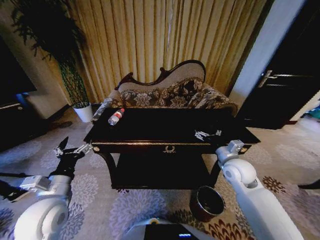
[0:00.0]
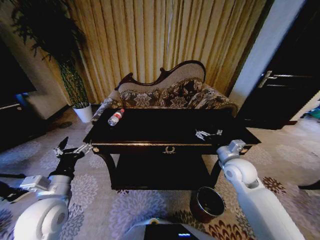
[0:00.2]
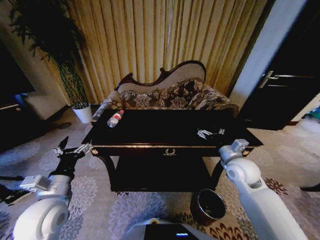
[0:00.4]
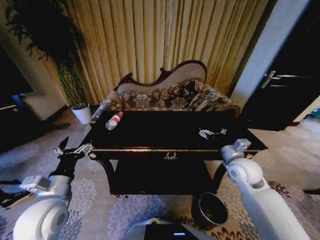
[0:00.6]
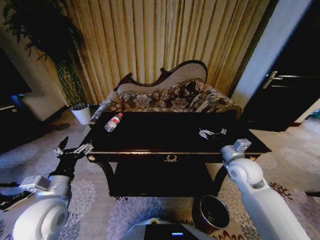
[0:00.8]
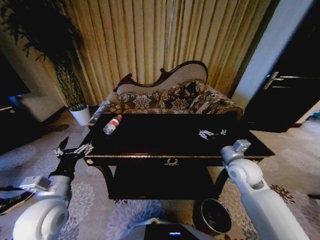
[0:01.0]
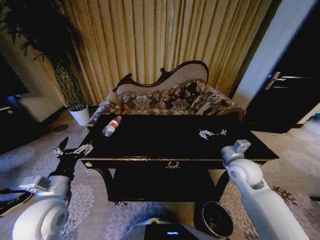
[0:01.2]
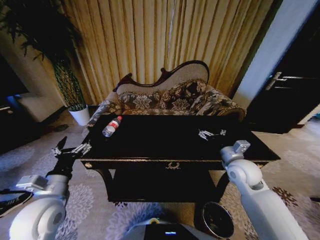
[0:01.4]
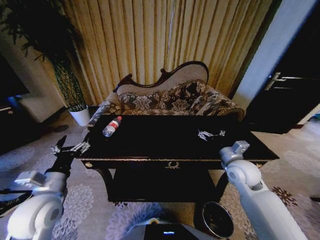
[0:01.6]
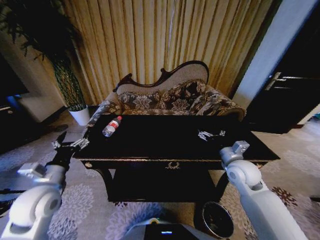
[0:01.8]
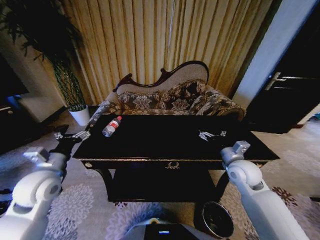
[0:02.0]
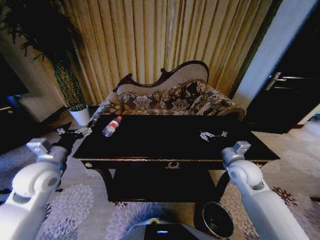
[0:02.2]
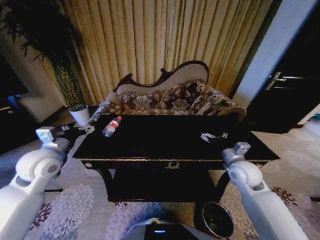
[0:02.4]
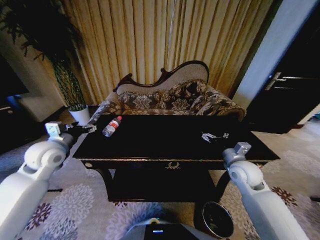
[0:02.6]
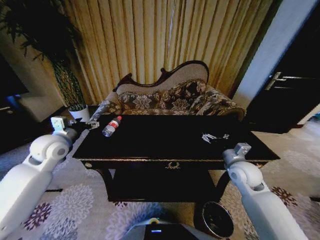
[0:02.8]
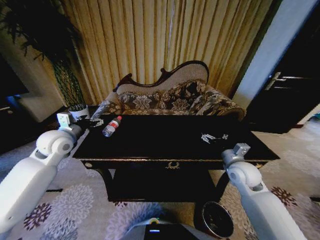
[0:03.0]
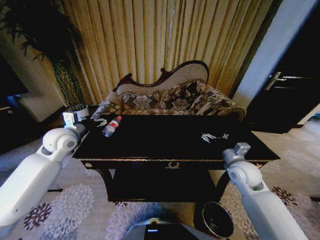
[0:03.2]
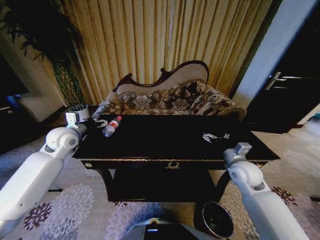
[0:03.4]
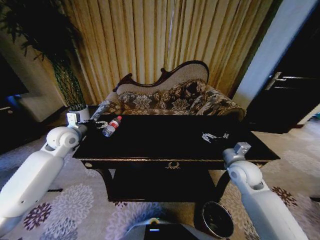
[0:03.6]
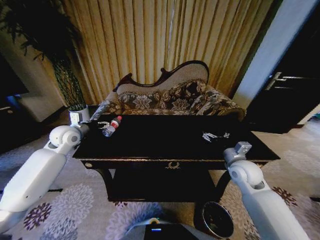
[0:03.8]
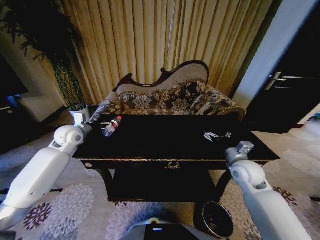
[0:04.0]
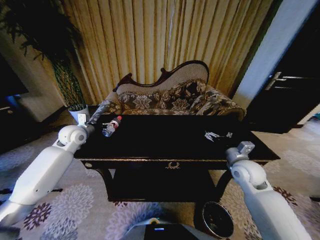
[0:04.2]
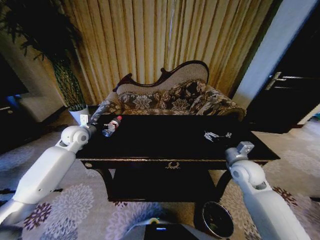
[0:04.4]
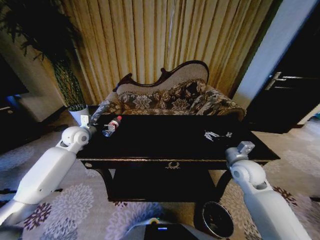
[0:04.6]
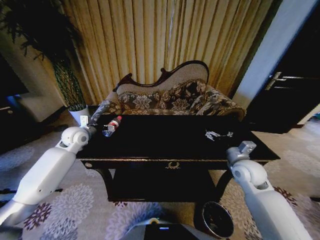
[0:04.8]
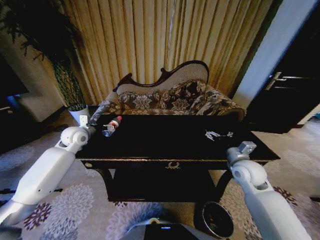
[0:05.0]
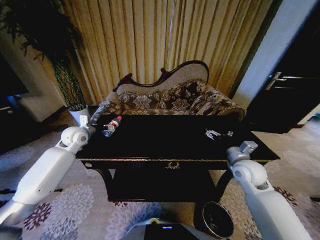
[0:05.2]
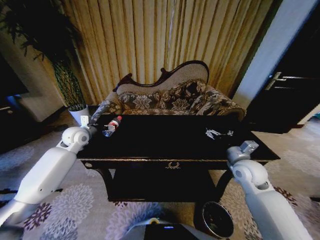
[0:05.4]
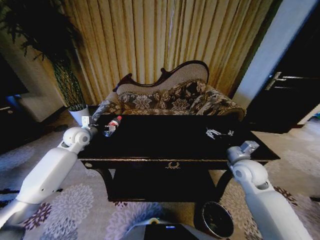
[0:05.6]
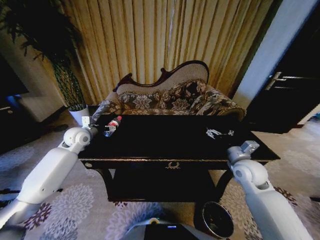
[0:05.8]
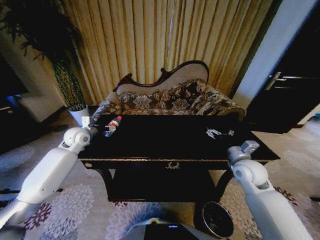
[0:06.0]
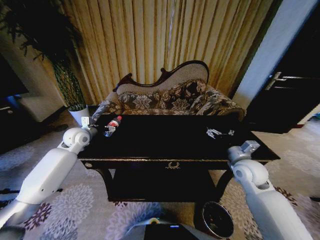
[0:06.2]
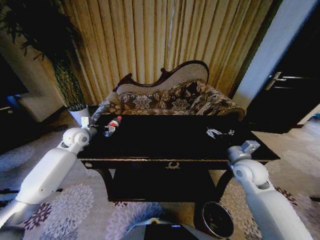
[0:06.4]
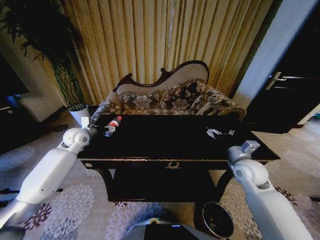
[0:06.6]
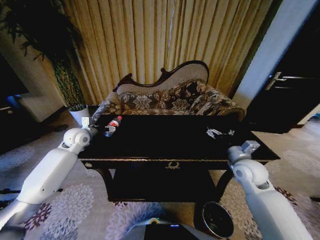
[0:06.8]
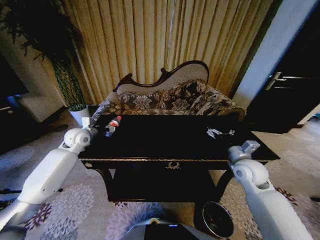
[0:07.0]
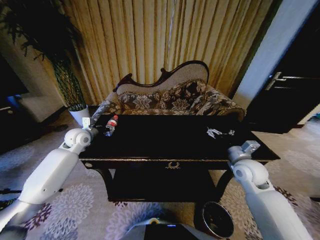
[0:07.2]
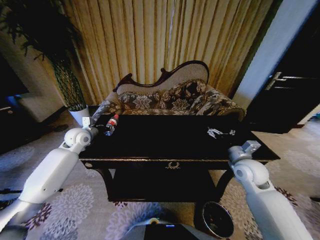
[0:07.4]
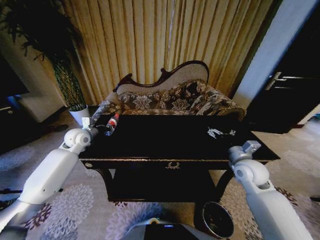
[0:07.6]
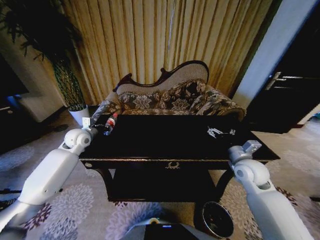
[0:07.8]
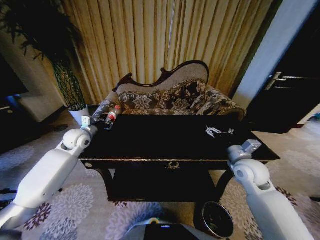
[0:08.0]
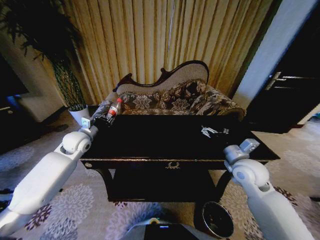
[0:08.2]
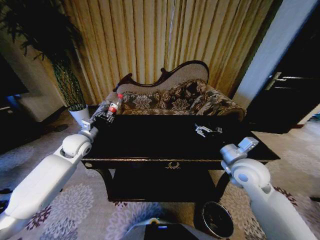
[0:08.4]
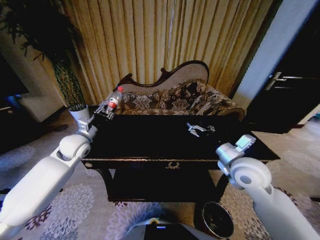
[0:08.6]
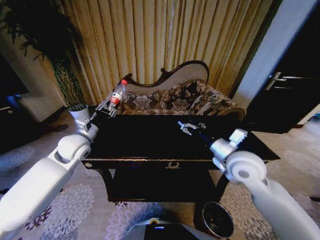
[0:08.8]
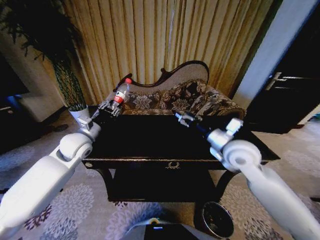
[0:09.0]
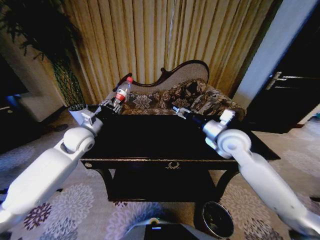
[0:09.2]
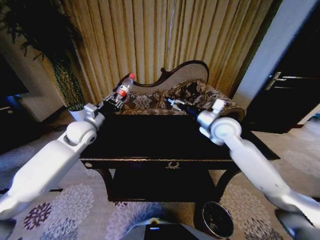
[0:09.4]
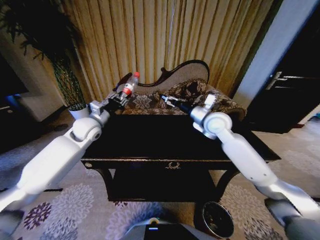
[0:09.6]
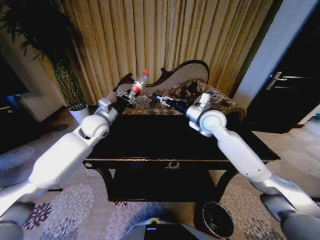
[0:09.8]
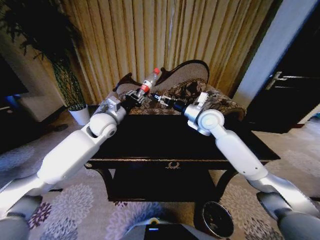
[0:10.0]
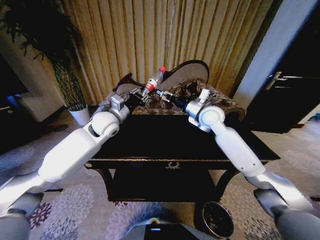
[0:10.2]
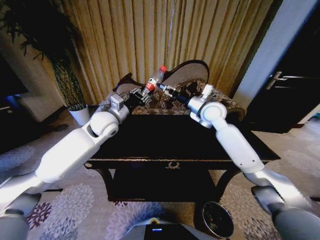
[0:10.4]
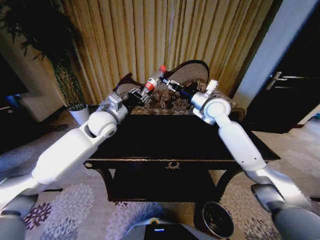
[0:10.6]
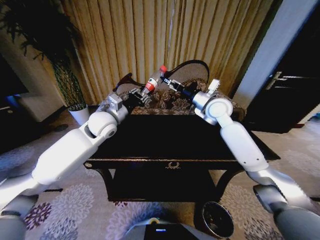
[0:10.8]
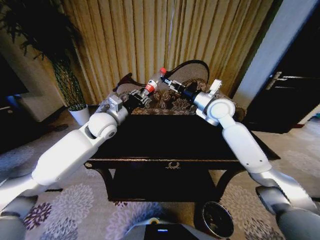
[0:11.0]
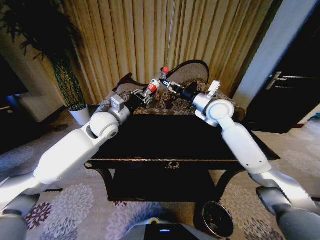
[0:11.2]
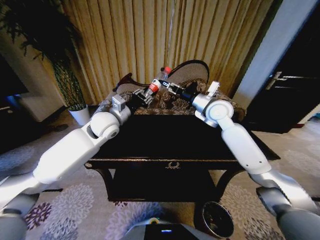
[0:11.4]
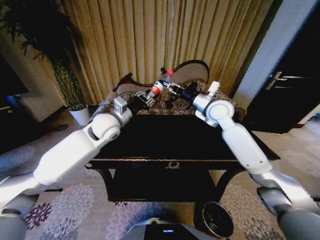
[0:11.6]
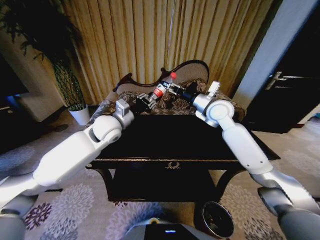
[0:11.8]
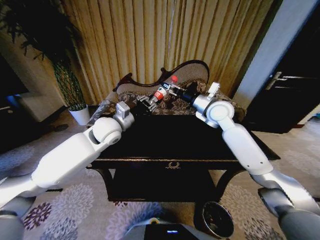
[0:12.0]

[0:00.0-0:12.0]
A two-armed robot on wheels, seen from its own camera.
Task of the whole recording: Move to the front of the table and place the trash on the table into the trash bin.
0:01.6 to 0:03.0: The left gripper is displaced forward by approximately 20 cm.
0:03.0 to 0:04.4: The left gripper is displaced forward by some 10 cm.
0:04.4 to 0:06.0: The two grippers keep their place.
0:06.0 to 0:07.6: The left gripper closes up.
0:07.6 to 0:09.0: The right gripper heads upward and to the left, covering some 15 cm, while the left gripper moves backward and to the right, some 10 cm.
0:09.0 to 0:10.4: The left gripper is displaced to the right, forward and upward by approximately 10 cm. Meanwhile the right gripper shifts some 15 cm forward.
0:10.4 to 0:12.0: The grippers stay close to where they were, moving slightly.

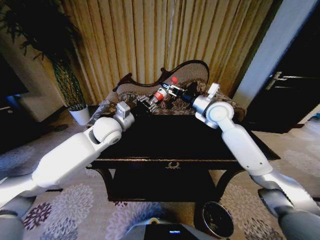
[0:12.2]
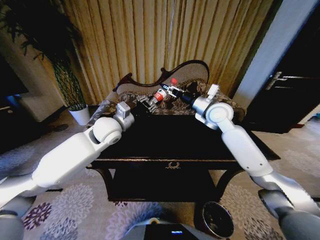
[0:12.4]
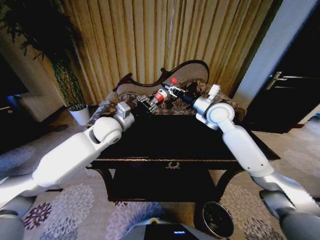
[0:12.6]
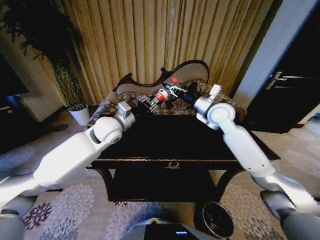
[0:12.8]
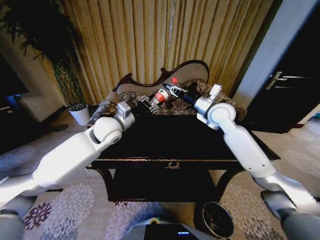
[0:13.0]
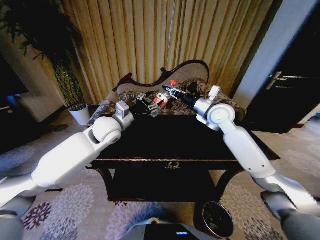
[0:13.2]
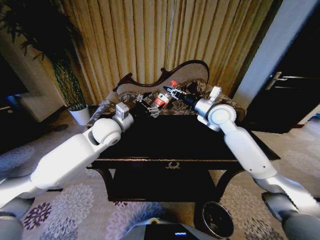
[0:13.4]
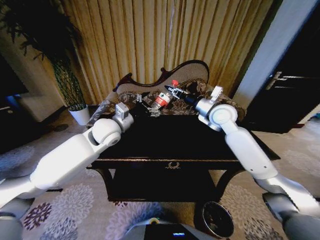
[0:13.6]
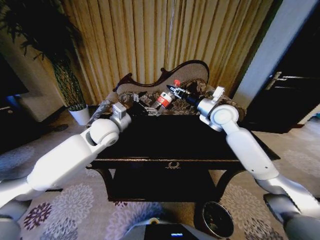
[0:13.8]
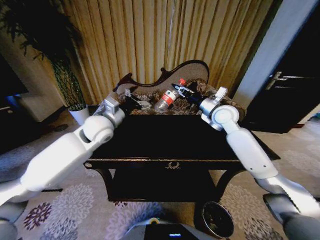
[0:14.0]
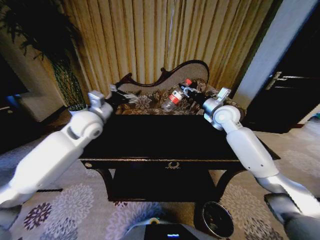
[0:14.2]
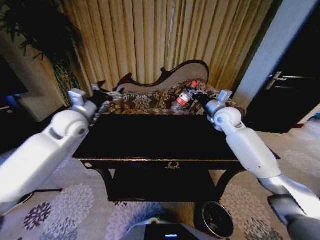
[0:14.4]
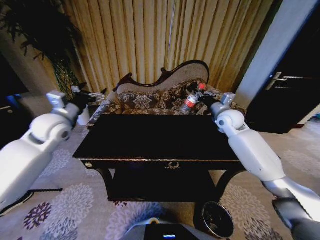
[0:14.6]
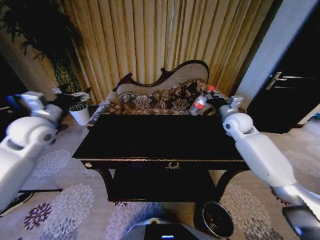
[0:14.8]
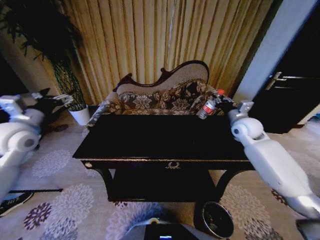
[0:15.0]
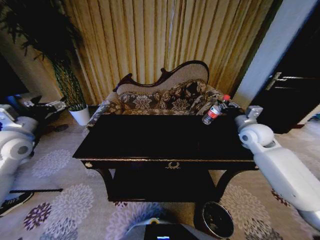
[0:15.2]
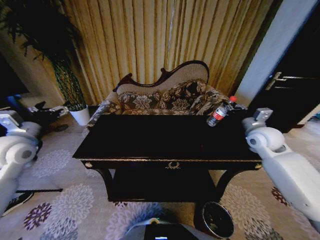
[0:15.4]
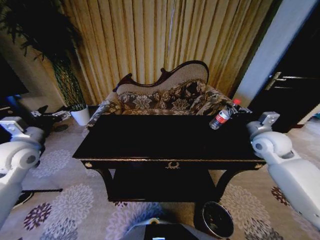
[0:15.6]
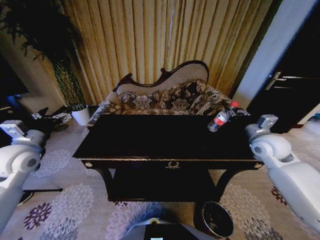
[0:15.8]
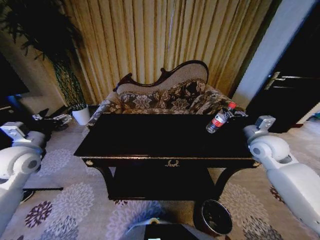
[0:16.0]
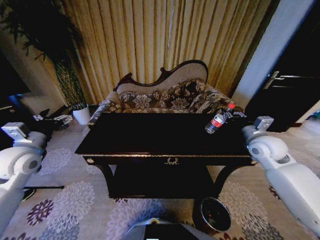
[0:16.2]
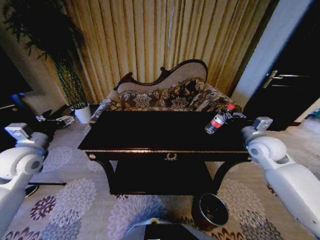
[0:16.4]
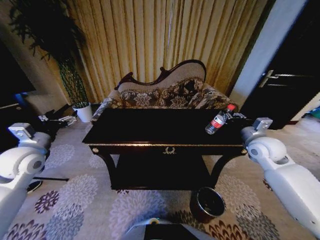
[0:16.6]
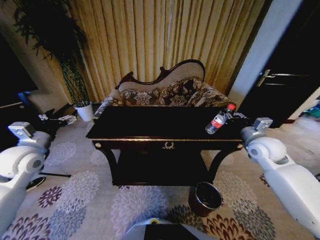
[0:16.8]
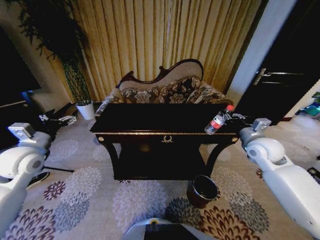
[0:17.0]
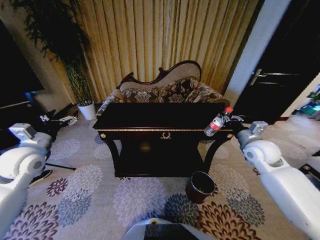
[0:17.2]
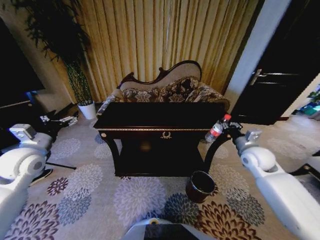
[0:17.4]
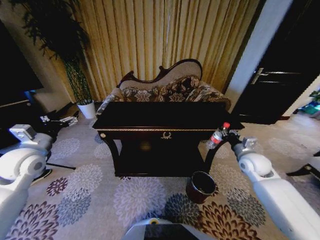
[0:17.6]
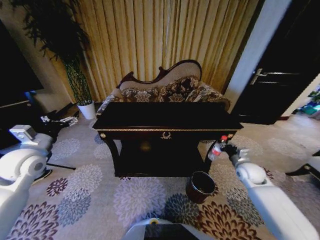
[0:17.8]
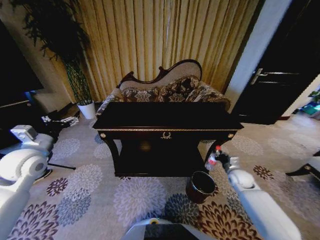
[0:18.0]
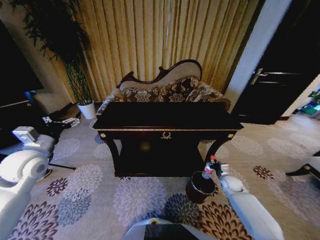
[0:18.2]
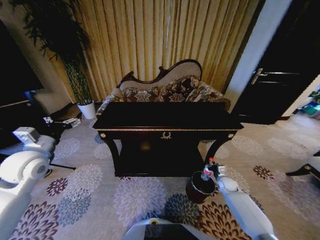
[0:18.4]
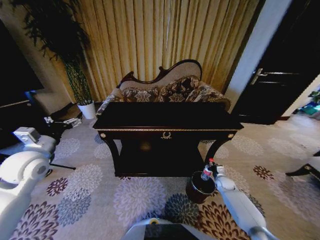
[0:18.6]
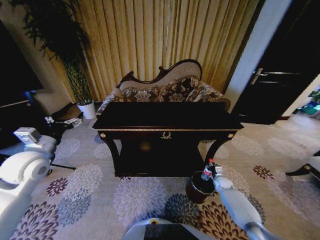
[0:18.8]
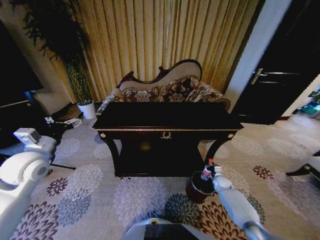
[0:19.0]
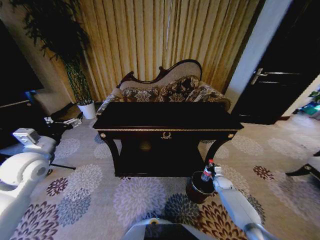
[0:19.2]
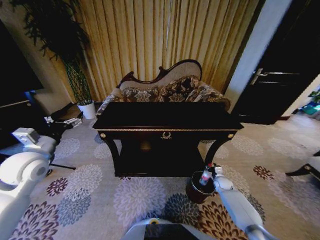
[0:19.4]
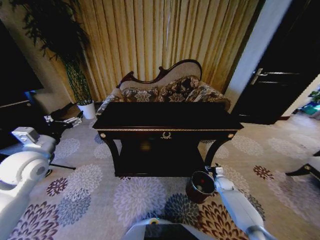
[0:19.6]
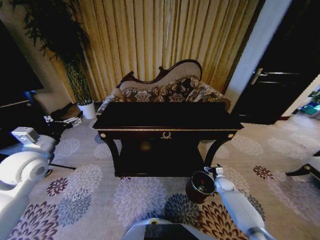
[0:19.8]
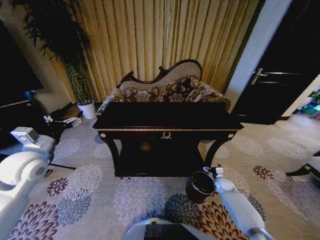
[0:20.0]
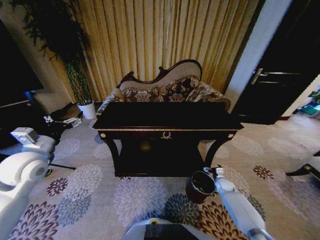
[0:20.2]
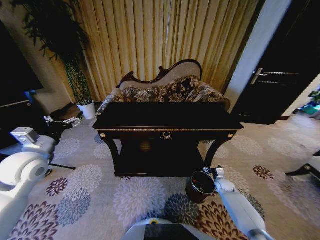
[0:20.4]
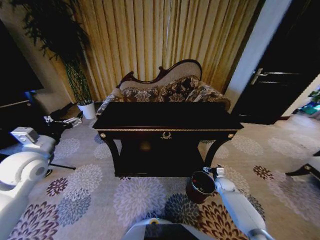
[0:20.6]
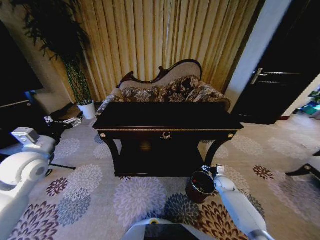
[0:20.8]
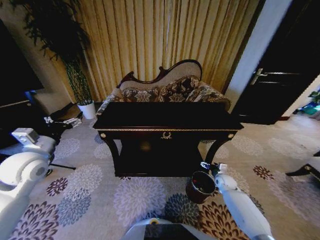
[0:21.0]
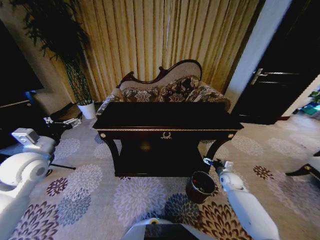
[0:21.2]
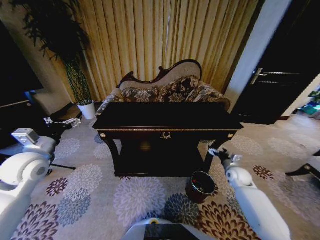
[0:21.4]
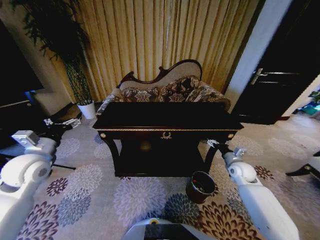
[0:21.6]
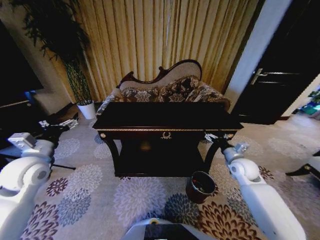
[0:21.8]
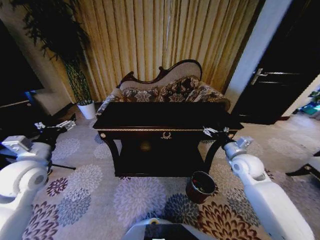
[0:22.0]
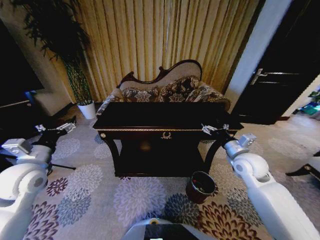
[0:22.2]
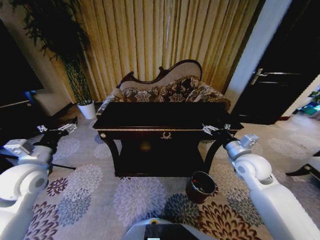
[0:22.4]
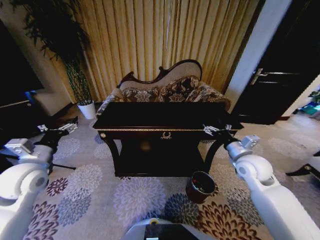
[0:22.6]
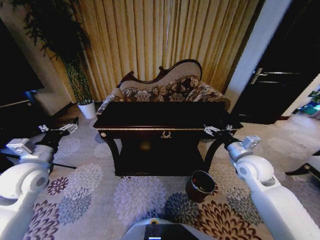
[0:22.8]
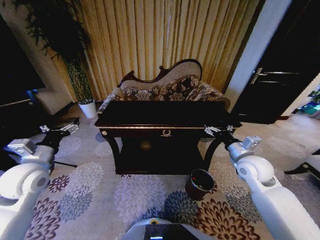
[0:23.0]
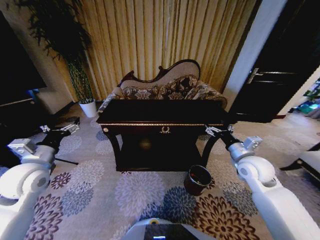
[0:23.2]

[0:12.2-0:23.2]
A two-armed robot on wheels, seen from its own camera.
Task of the whole recording: Move to the front of the table and place the trash on the table into the trash bin.
0:12.2 to 0:13.8: The left gripper opens. Meanwhile the right gripper closes its fingers.
0:13.8 to 0:15.4: The left gripper is displaced to the left by roughly 25 cm; the right gripper heads to the right and backward, covering approximately 15 cm.
0:17.0 to 0:18.4: The right gripper shifts about 35 cm downward.
0:18.4 to 0:20.0: The right gripper opens its fingers.
0:20.0 to 0:21.6: The right gripper goes roughly 20 cm upward.
0:21.6 to 0:23.2: The right gripper moves upward and to the left, approximately 15 cm.
